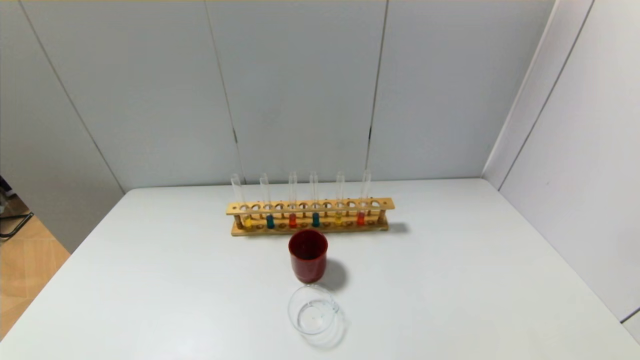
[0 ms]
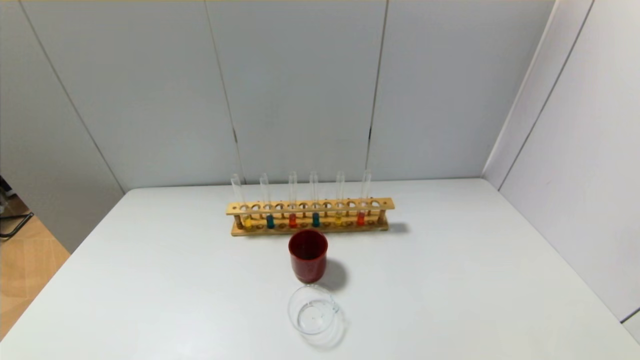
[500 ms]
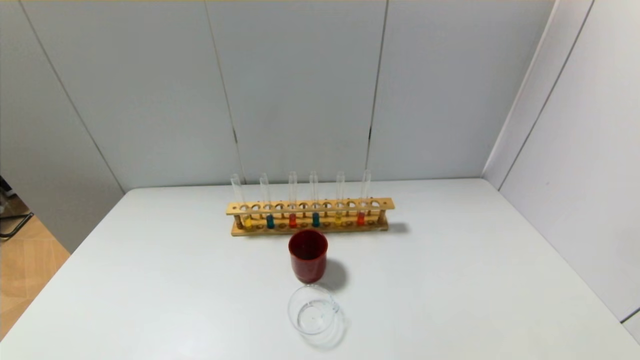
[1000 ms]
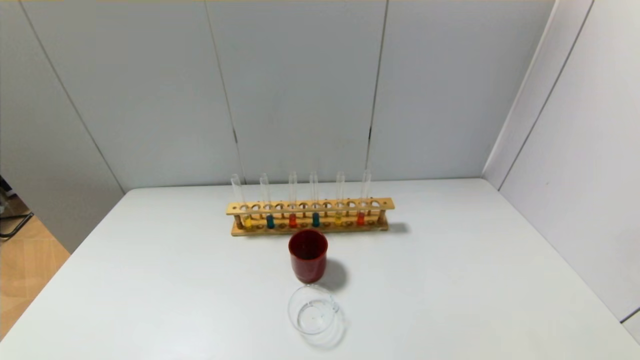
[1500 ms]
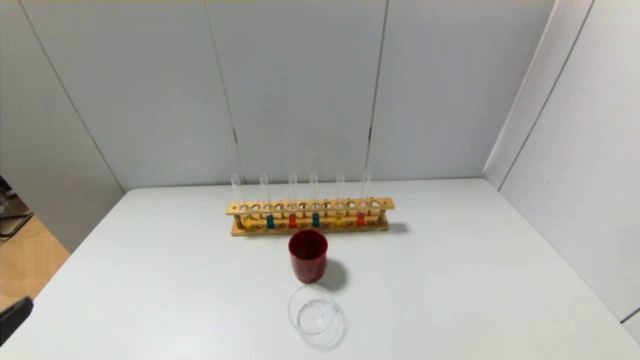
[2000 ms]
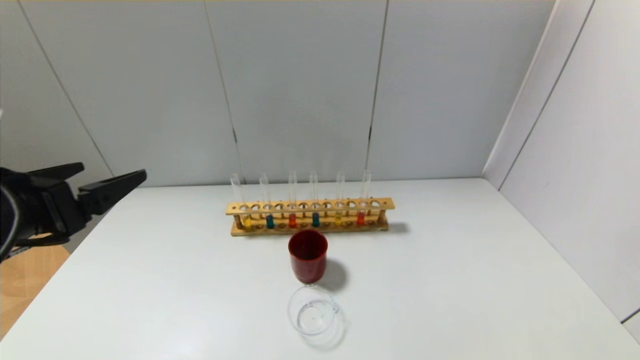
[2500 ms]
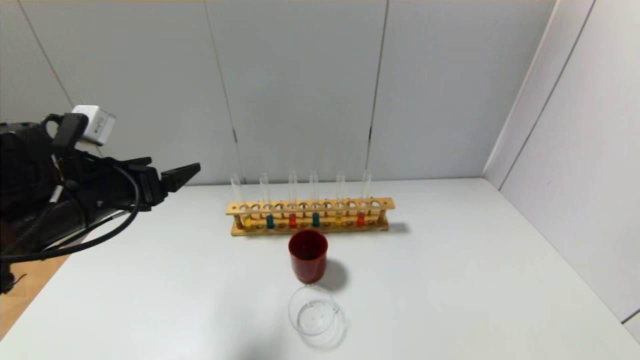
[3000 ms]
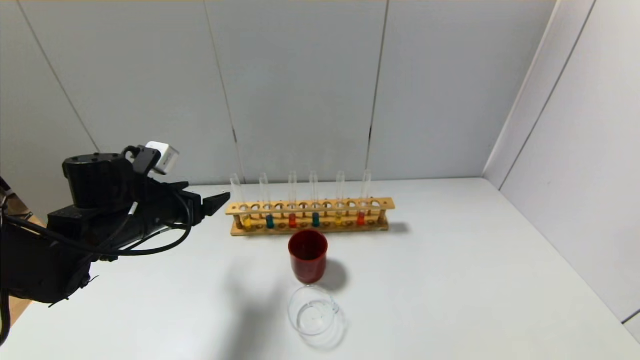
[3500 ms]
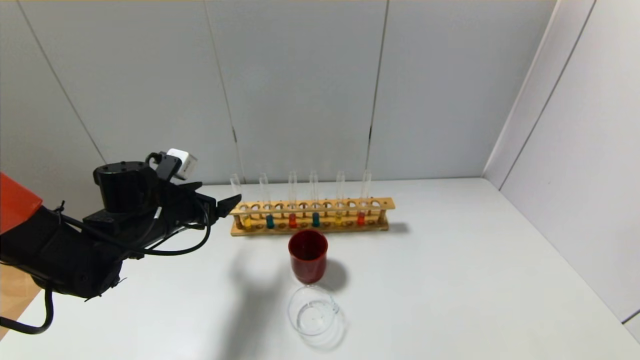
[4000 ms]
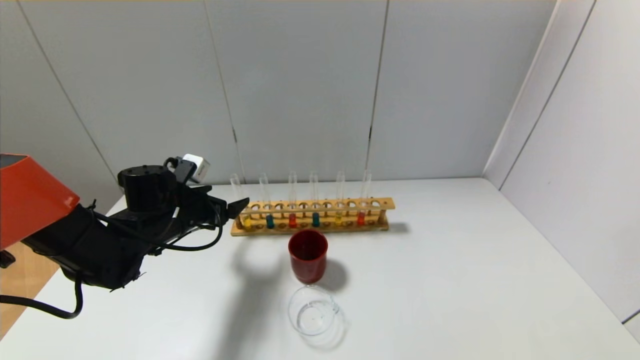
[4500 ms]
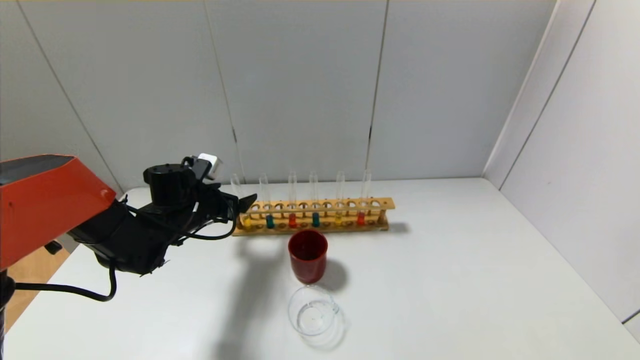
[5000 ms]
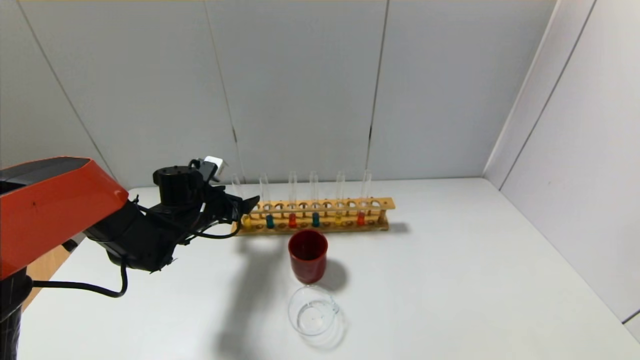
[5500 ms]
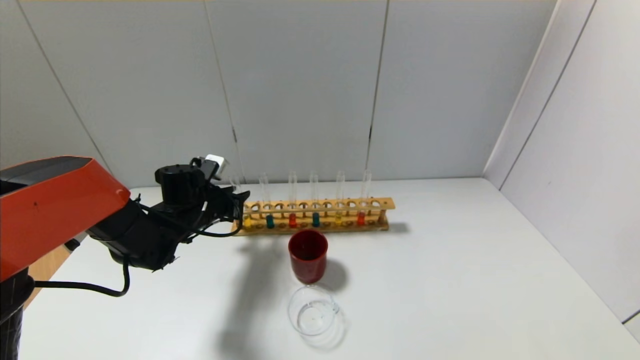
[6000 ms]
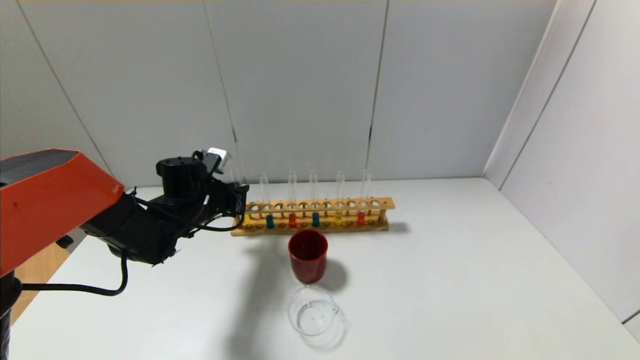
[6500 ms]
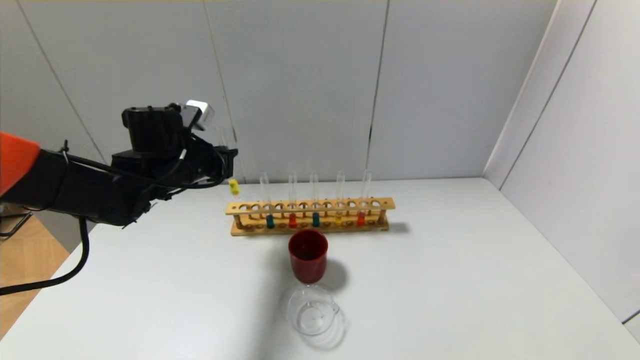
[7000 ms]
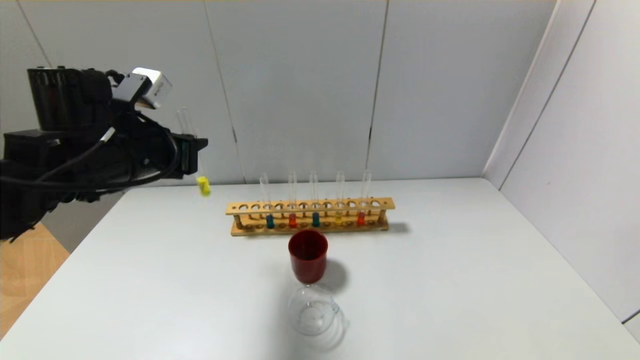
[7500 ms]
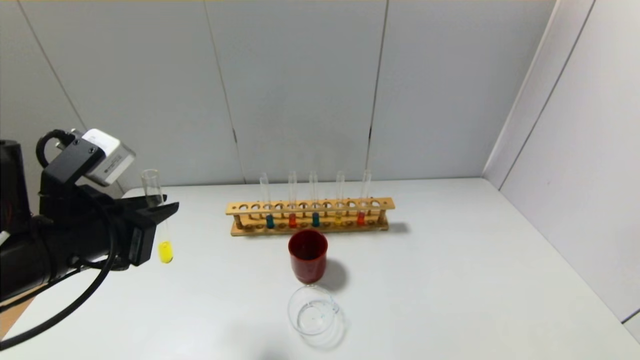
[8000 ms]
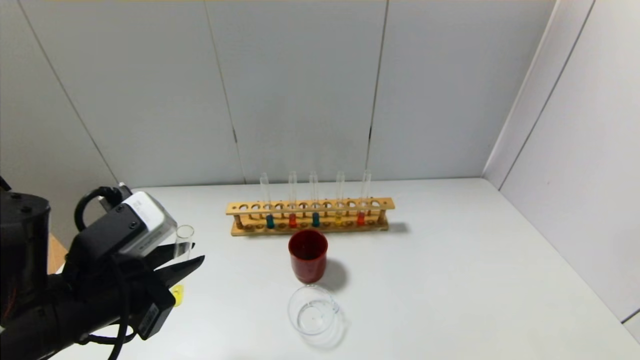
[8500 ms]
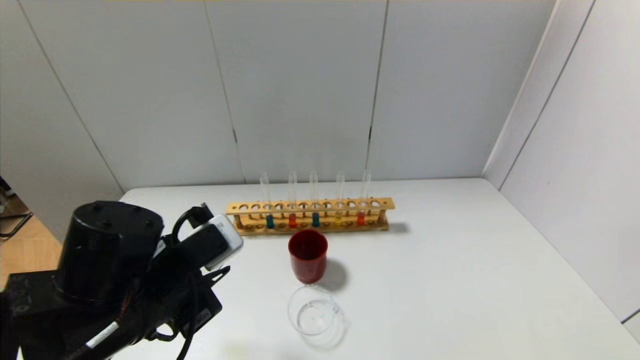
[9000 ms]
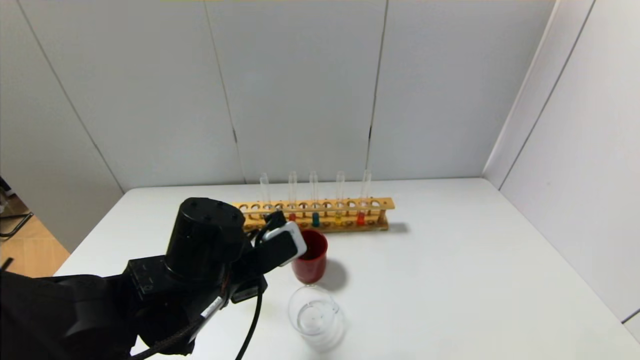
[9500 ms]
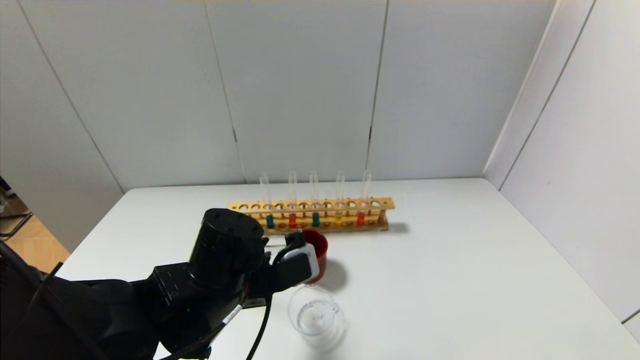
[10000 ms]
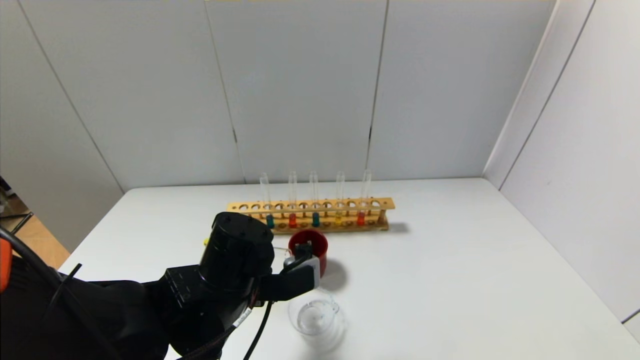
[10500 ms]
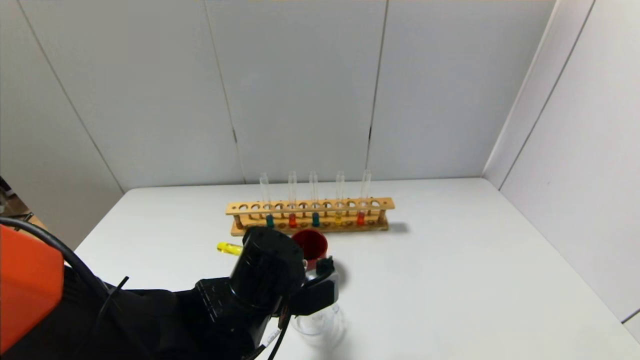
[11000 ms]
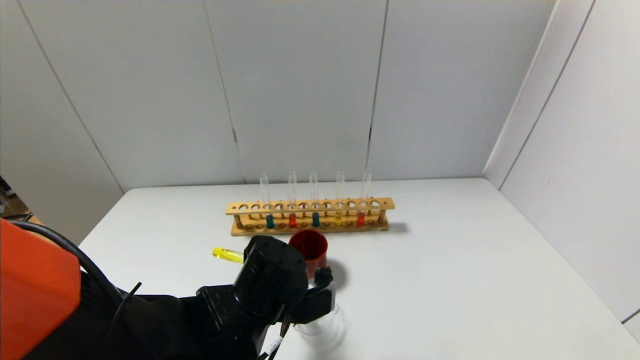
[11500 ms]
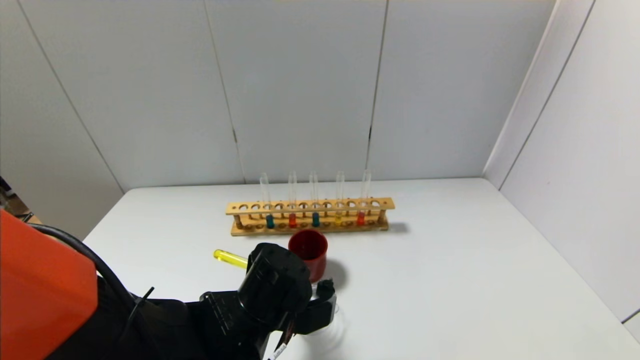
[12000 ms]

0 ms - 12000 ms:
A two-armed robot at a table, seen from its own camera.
Step, 0 ms - 6000 ms: Grasp the yellow reagent with the left gripper.
2000 ms - 4000 ms: The left gripper heads forward, covering approximately 30 cm.
4000 ms - 6000 ms: The left gripper heads forward, covering about 5 cm, and closes up.
6000 ms - 8000 ms: The left gripper moves backward and upward, roughly 25 cm.
8000 ms - 10000 ms: The left gripper goes about 15 cm to the right and downward.
10000 ms - 12000 ms: The left gripper moves about 5 cm.

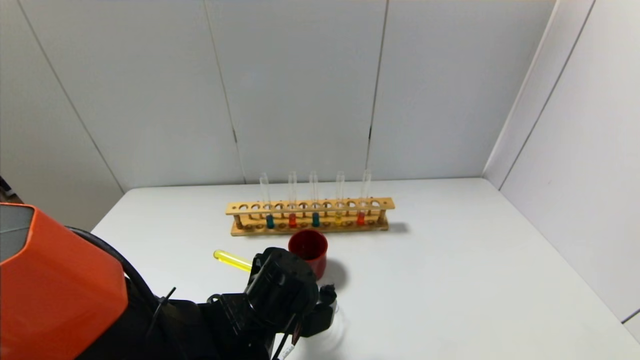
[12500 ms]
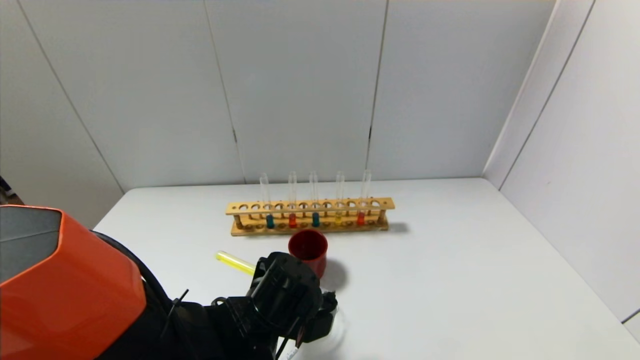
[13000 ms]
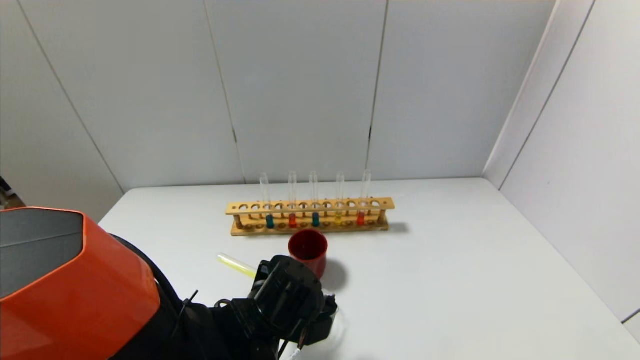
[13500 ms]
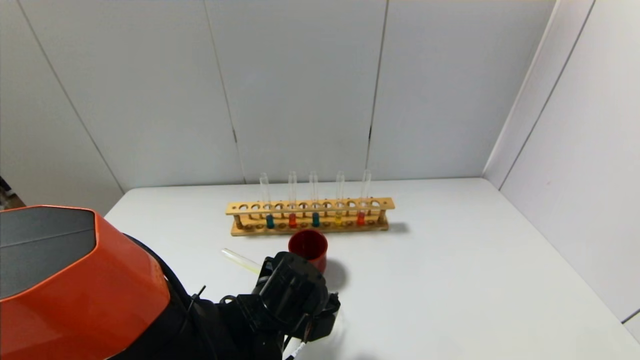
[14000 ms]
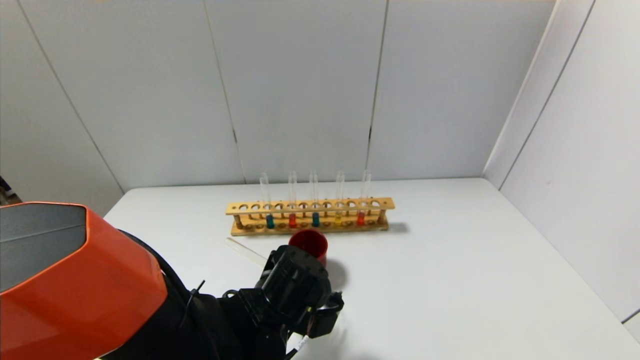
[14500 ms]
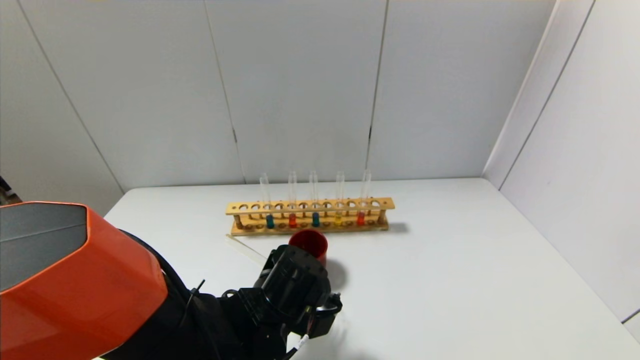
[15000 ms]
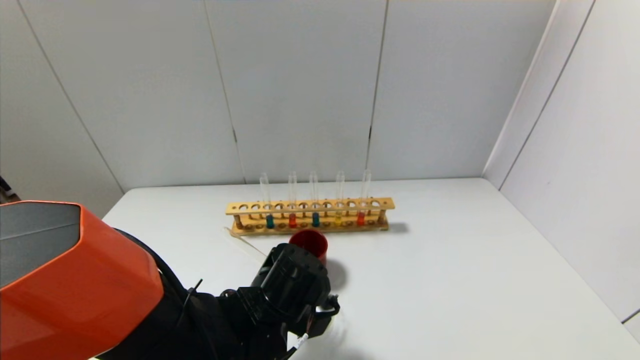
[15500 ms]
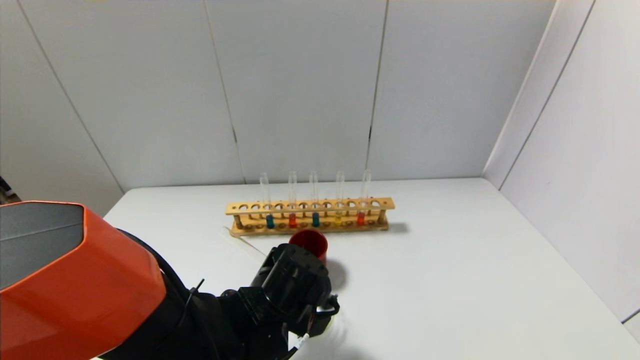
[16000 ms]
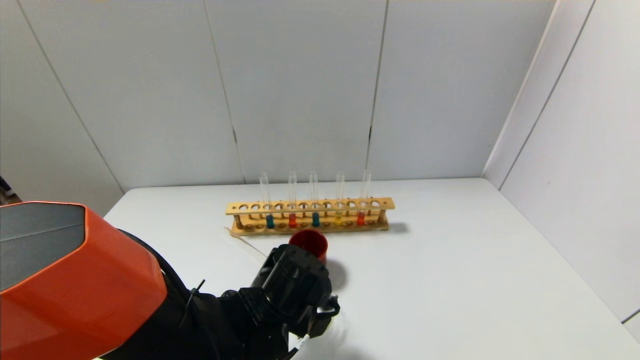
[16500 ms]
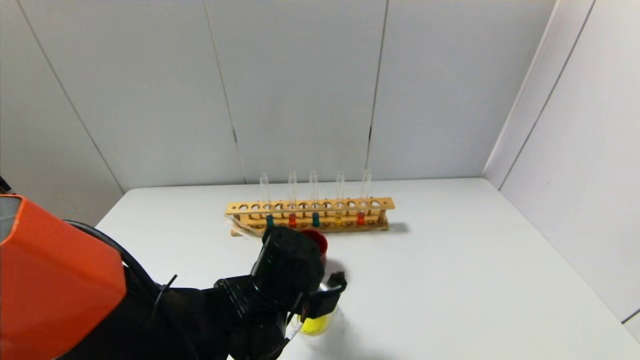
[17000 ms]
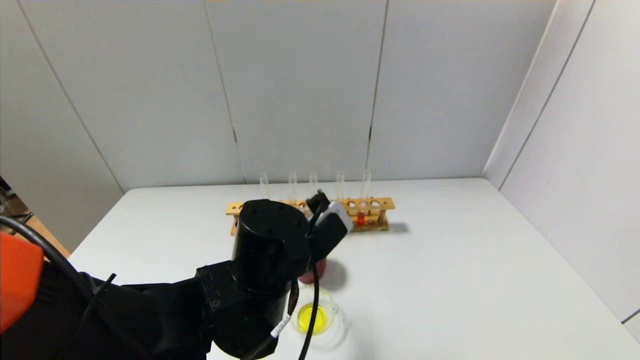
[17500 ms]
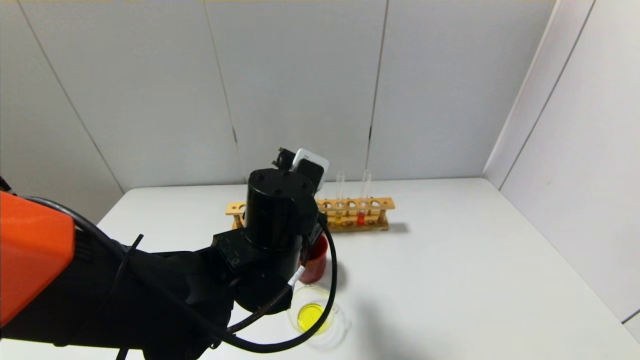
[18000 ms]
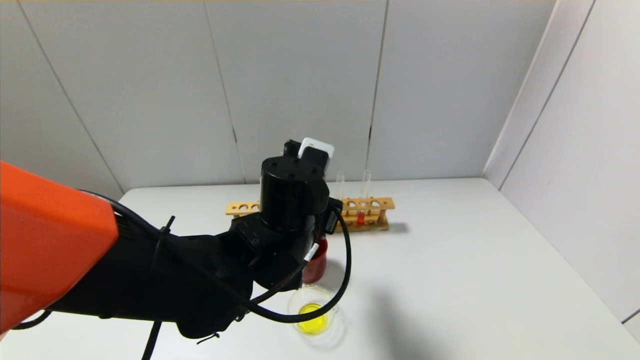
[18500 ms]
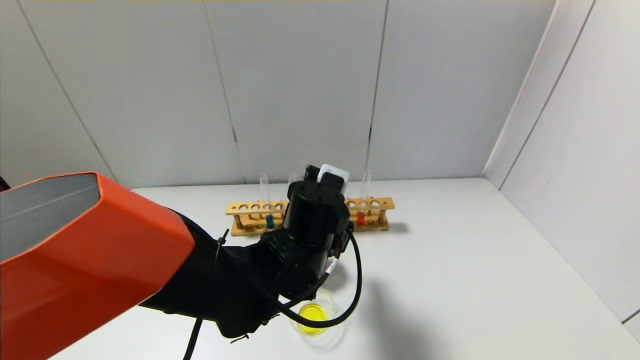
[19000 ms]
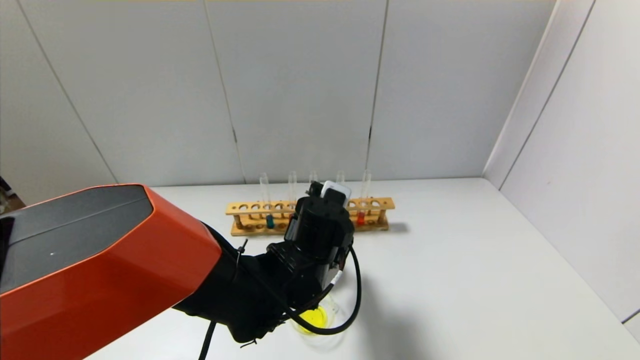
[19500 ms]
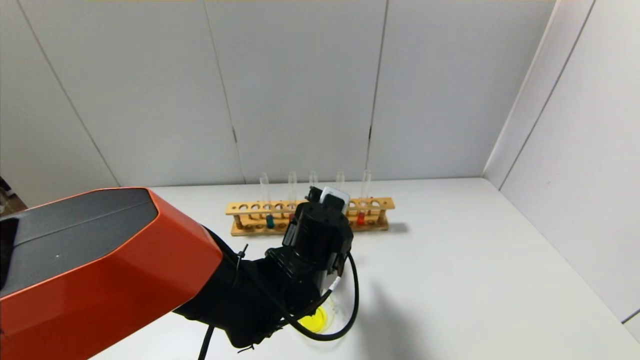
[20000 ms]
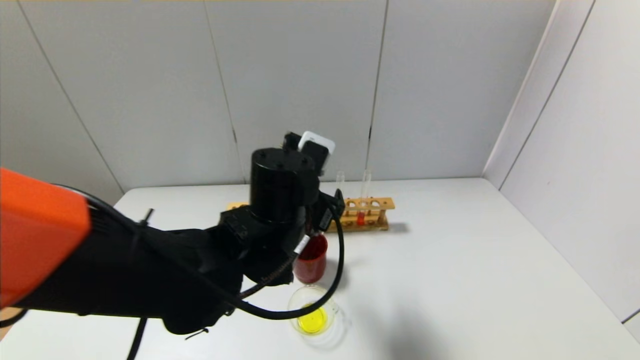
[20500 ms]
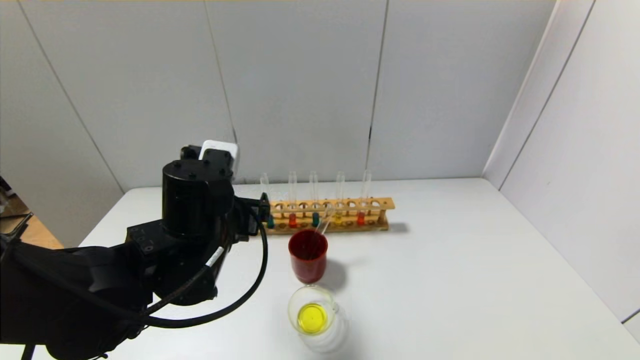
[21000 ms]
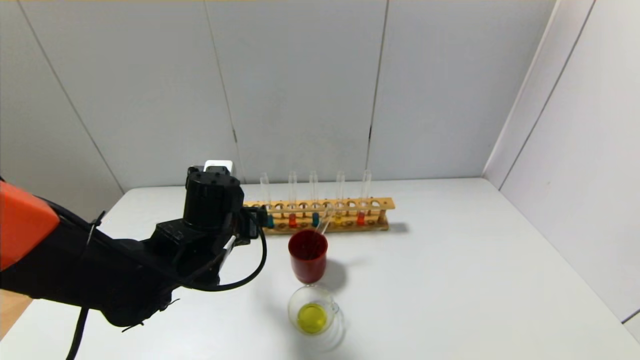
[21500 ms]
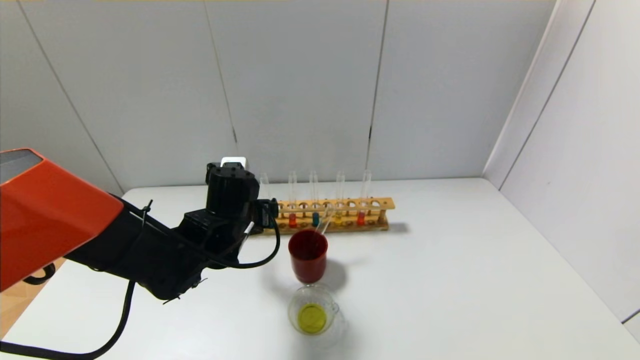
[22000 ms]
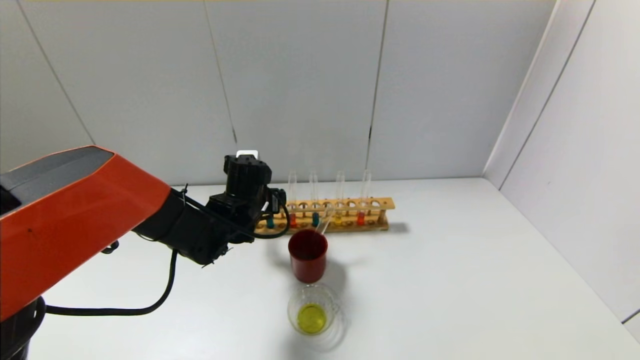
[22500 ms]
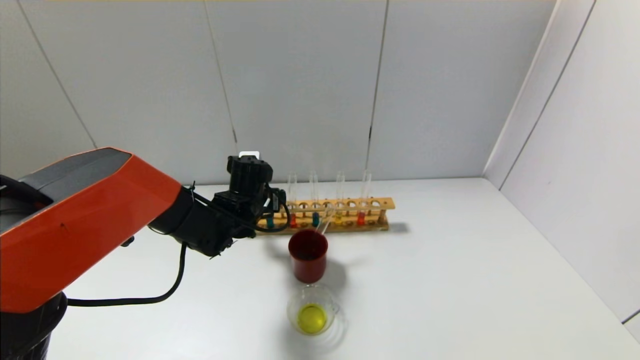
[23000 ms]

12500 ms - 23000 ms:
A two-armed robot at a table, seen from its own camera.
Step, 12500 ms - 16500 ms: Pour the yellow reagent into the graduated cylinder with the left gripper.
Step, 17000 ms - 19500 ms: Place the test tube into the brown cup with the left gripper.
12500 ms - 14500 ms: The grippers stay close to where they were, moving slightly.
16500 ms - 19000 ms: The left gripper heads upward and forward, covering about 10 cm.
19000 ms - 21000 ms: The left gripper shifts roughly 10 cm to the left, and opens its fingers.
21000 ms - 23000 ms: The left gripper moves forward and downward, approximately 15 cm.
